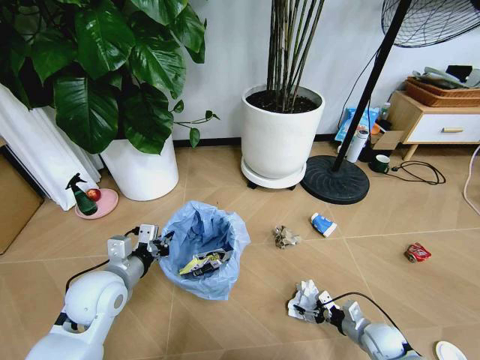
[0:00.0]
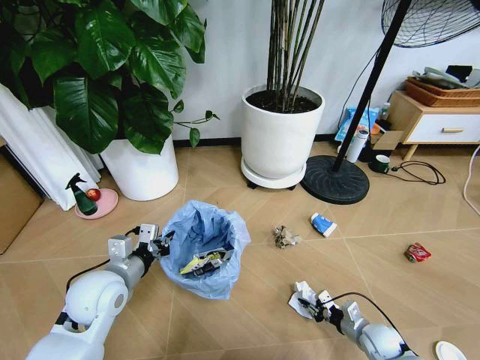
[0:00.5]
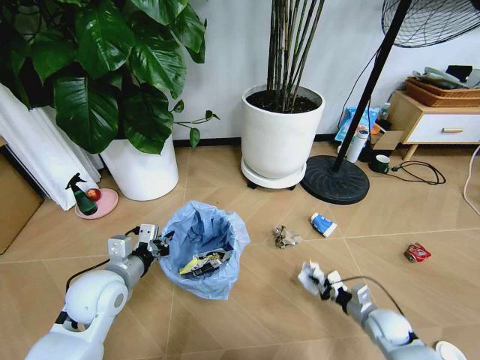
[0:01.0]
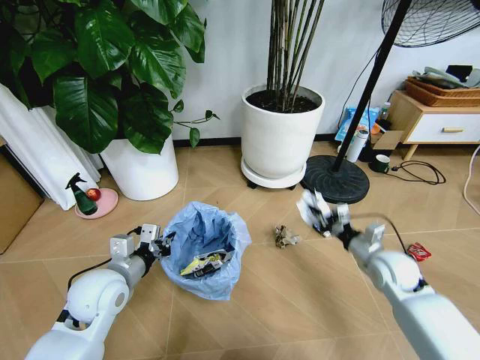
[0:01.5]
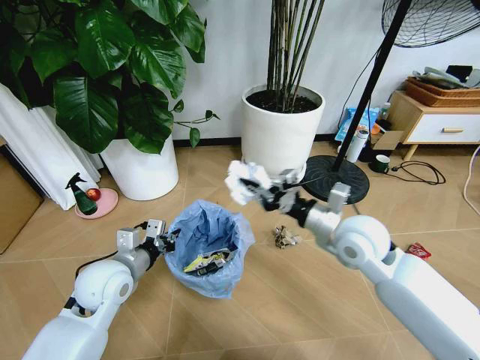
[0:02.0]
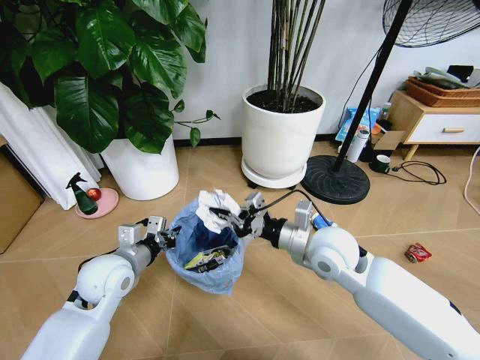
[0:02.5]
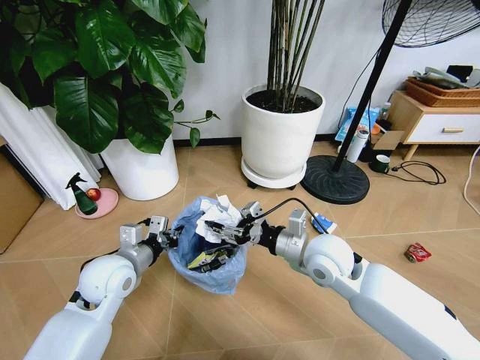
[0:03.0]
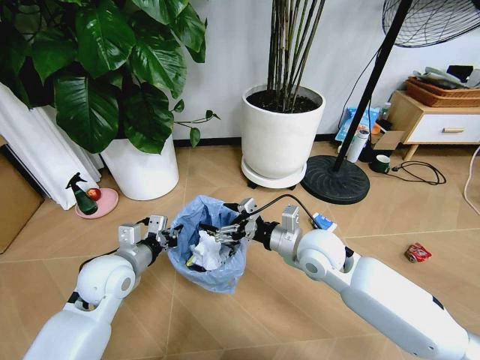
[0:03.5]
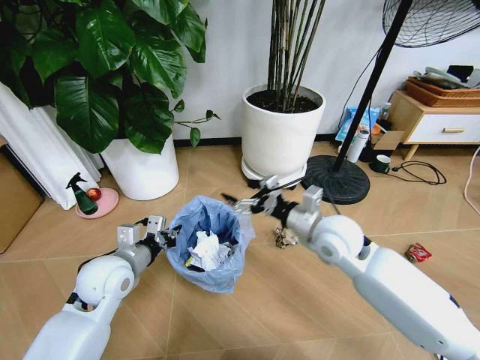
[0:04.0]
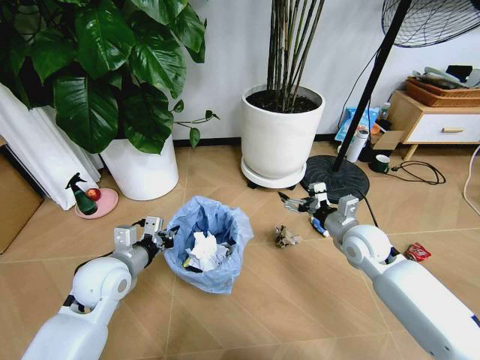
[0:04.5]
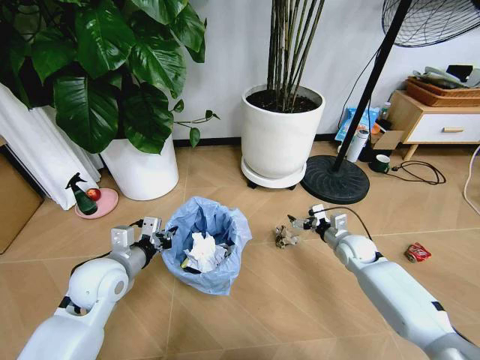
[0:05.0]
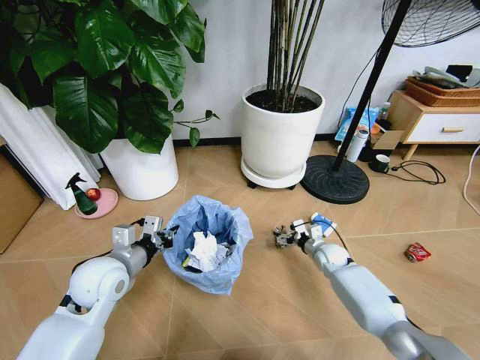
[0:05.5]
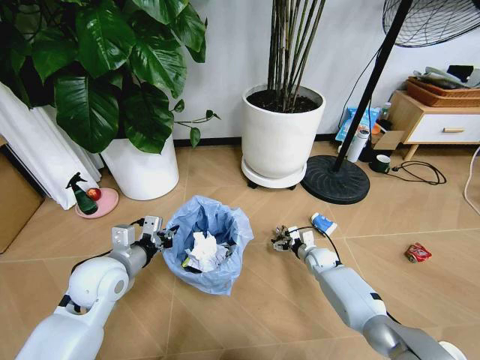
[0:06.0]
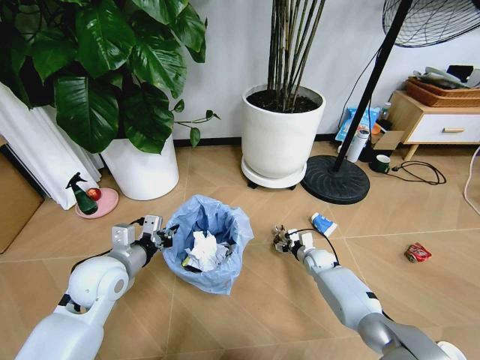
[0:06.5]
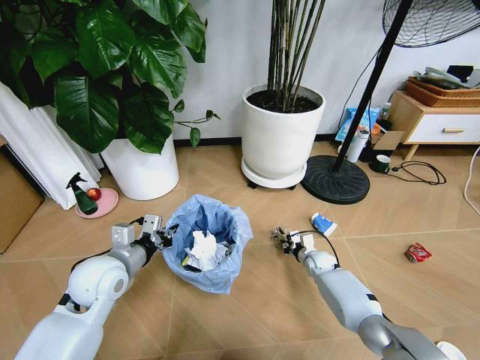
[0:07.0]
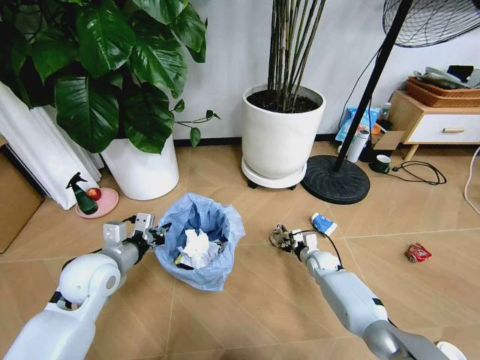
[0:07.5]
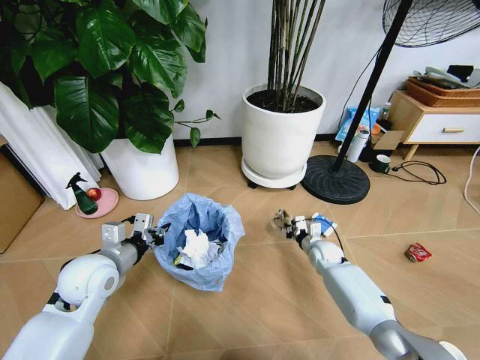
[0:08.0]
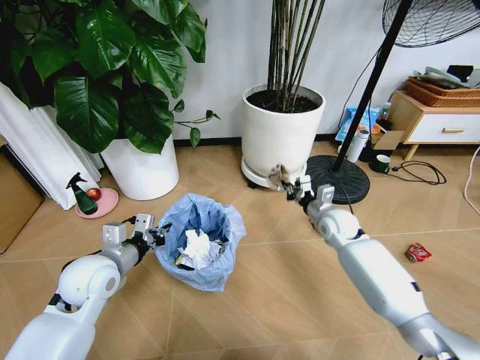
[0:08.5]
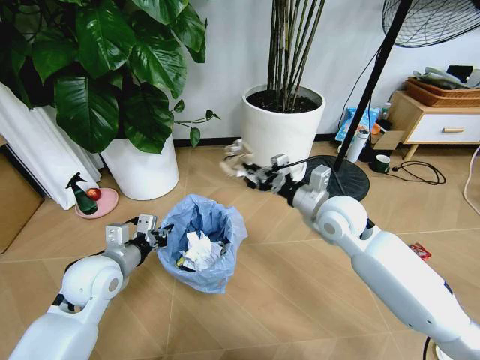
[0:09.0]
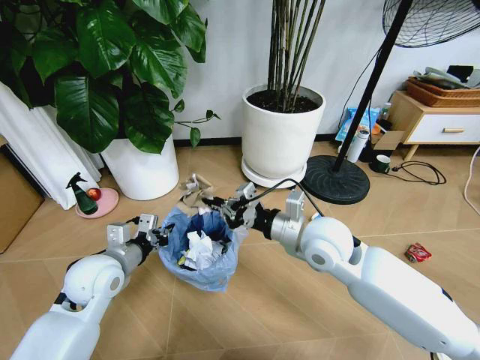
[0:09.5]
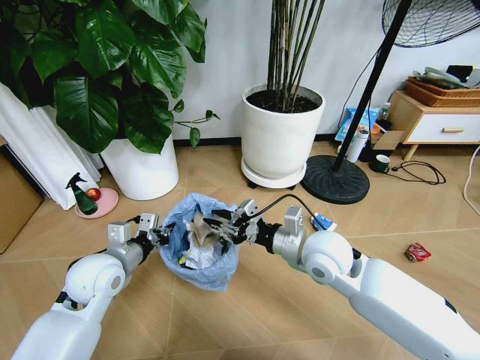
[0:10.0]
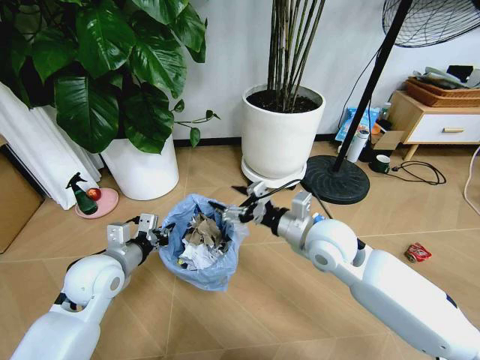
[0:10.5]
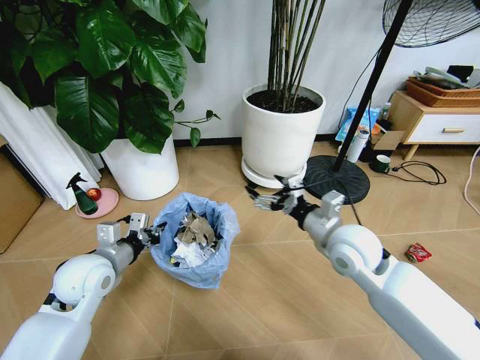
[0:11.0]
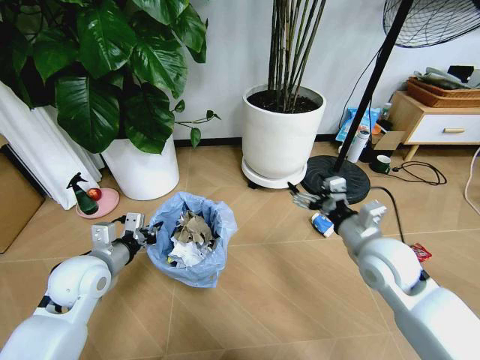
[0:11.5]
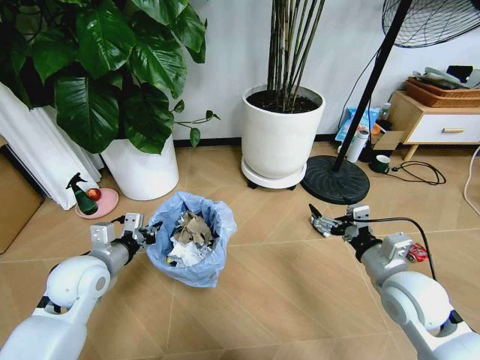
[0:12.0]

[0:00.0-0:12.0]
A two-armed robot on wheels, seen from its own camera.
Task of the whole recording: Pick up the trash bin and place the garbage on the floor into it.
0:00.0 to 0:02.0: The right gripper moves upward and to the left, roughly 35 cm, and closes its fingers.
0:02.0 to 0:04.0: The right gripper opens its fingers.
0:04.0 to 0:06.0: The right gripper travels downward by about 30 cm.
0:06.0 to 0:08.0: The right gripper closes up.
0:08.0 to 0:10.0: The right gripper heads upward, backward and to the left, covering about 30 cm.
0:10.0 to 0:12.0: The right gripper goes some 15 cm to the right and backward, and opens.

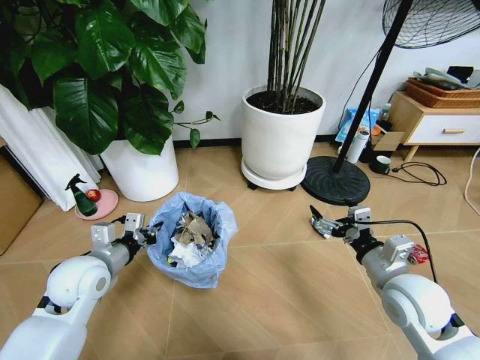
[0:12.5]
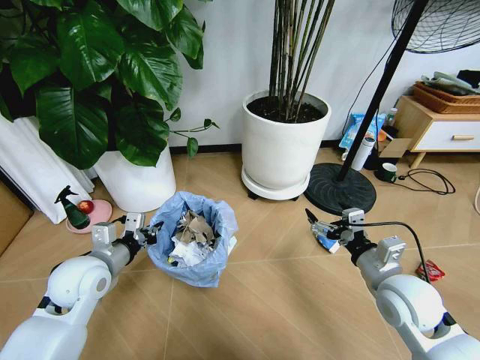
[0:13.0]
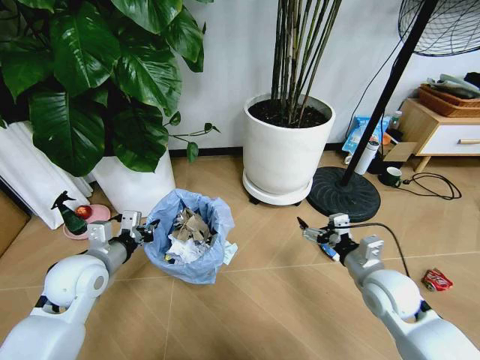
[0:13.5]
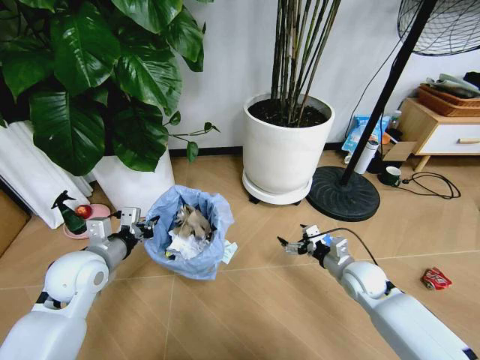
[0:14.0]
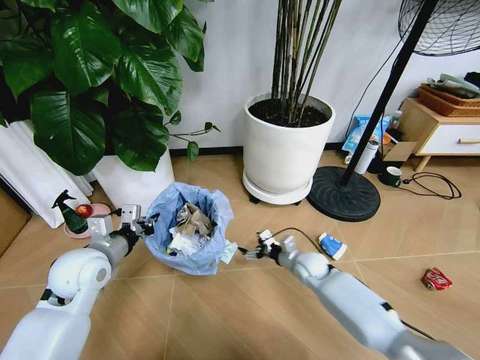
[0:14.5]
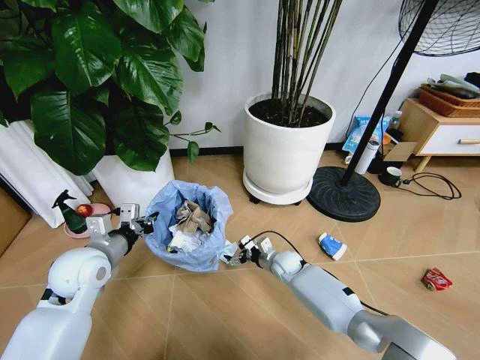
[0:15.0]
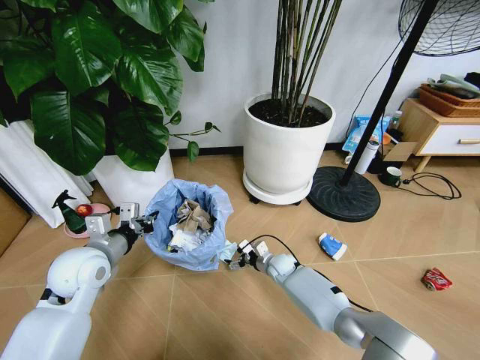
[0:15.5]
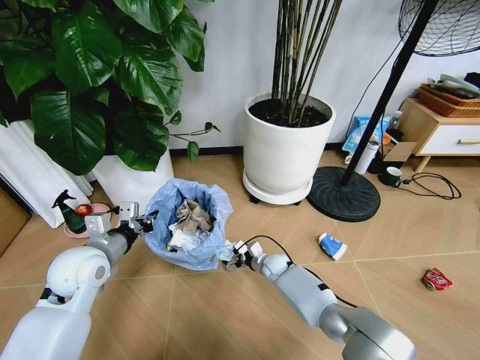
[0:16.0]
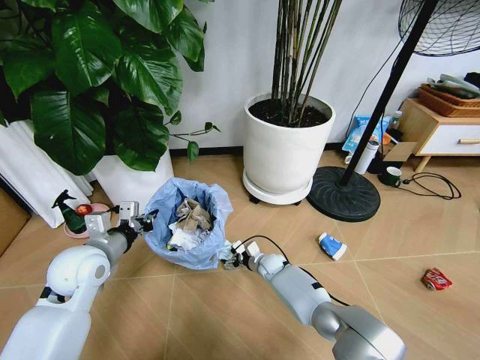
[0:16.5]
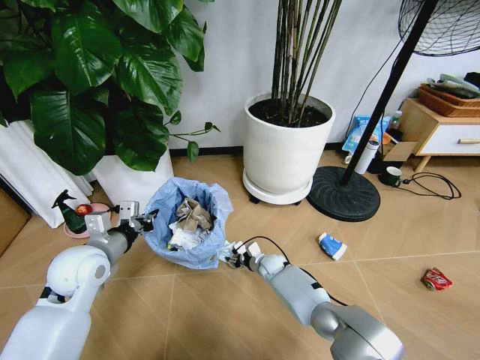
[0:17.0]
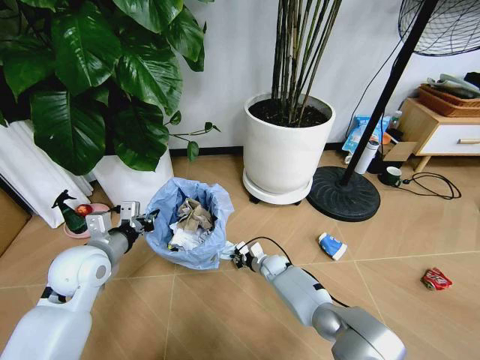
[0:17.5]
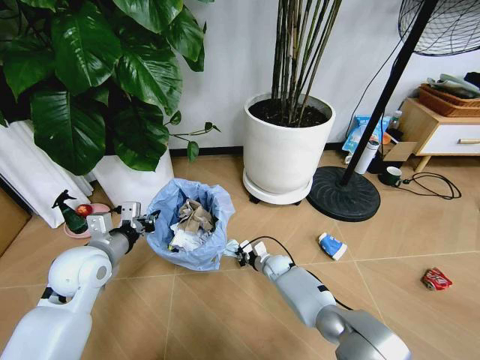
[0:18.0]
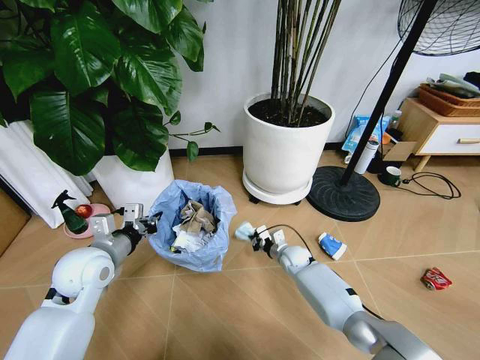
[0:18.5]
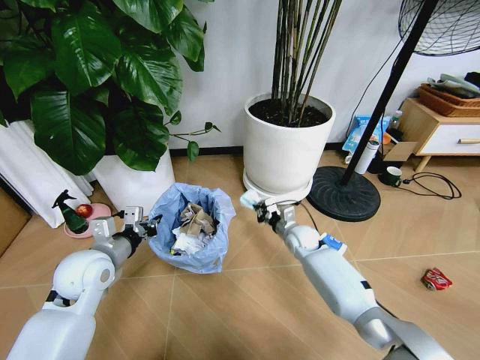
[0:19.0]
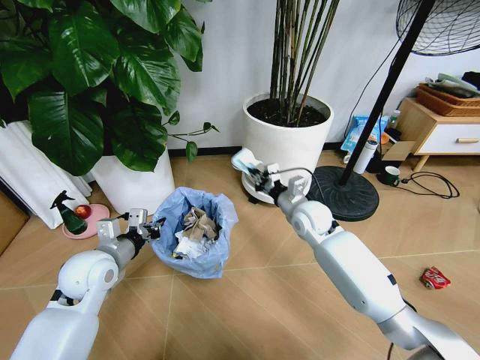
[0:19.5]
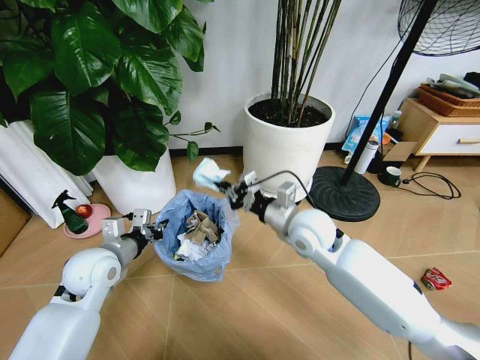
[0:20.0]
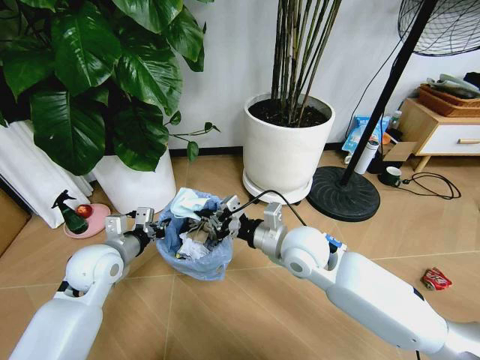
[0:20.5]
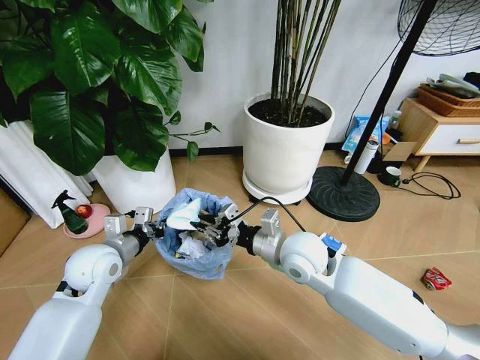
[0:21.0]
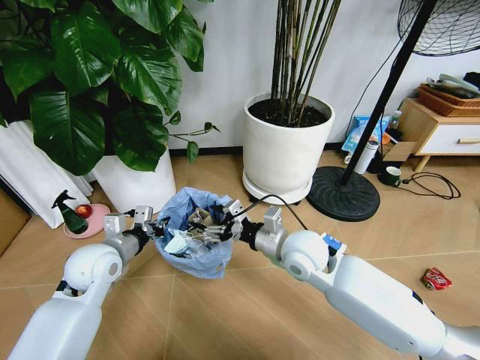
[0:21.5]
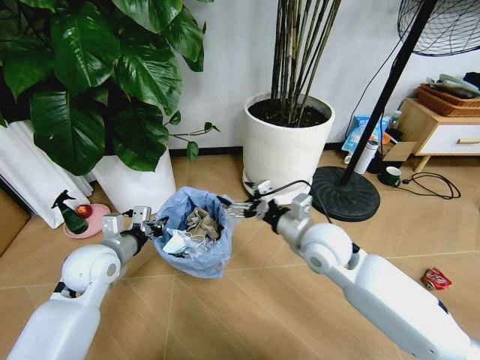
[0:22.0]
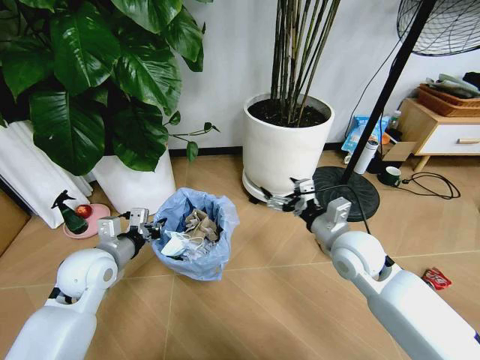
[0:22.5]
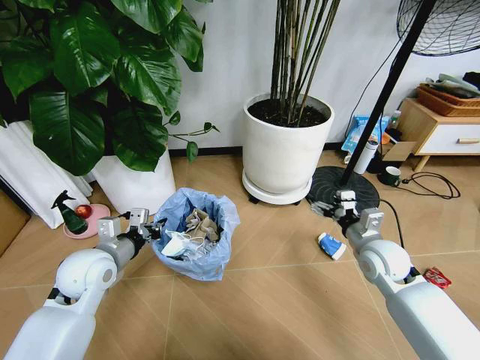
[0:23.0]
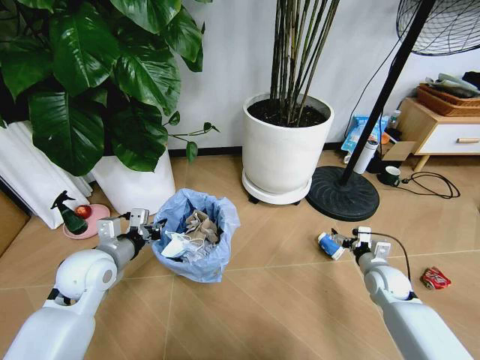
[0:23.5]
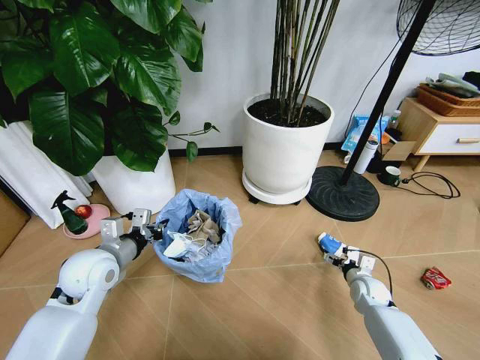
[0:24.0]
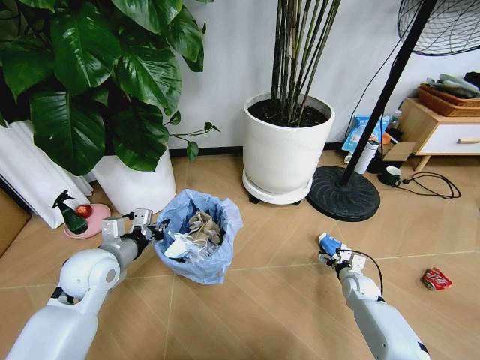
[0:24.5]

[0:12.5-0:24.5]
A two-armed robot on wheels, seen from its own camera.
Task of the whole recording: Pick up the trash bin and place the garbage on the floor into it.
0:12.5 to 0:14.5: The right gripper goes about 30 cm downward, forward and to the left.
0:14.5 to 0:16.5: The right gripper is displaced to the left and downward by roughly 15 cm.
0:16.5 to 0:18.5: The right gripper goes roughly 5 cm to the right, and closes up.
0:18.5 to 0:20.5: The right gripper heads upward and backward, covering some 30 cm.
0:20.5 to 0:22.5: The right gripper moves to the right, roughly 10 cm, and opens up.
0:22.5 to 0:24.5: The right gripper travels downward and to the right by some 30 cm.

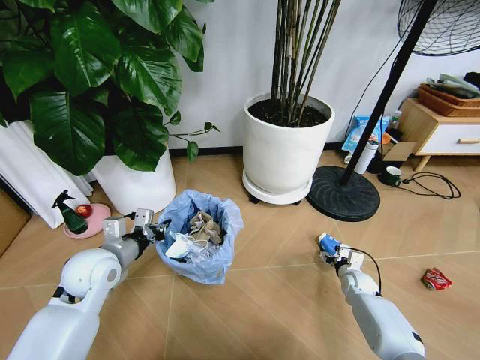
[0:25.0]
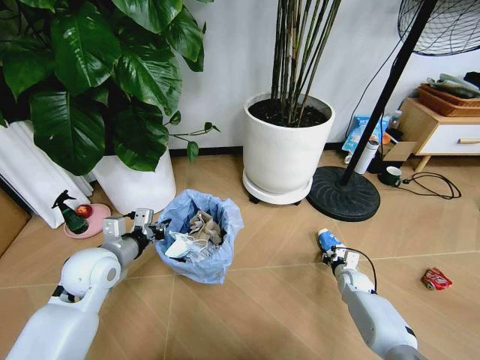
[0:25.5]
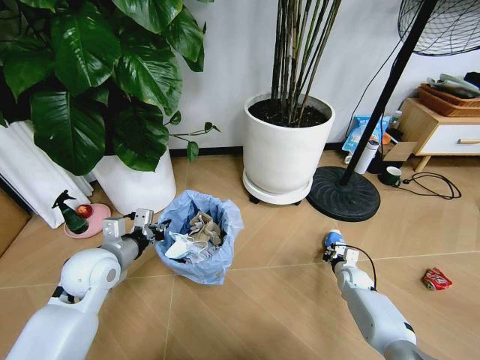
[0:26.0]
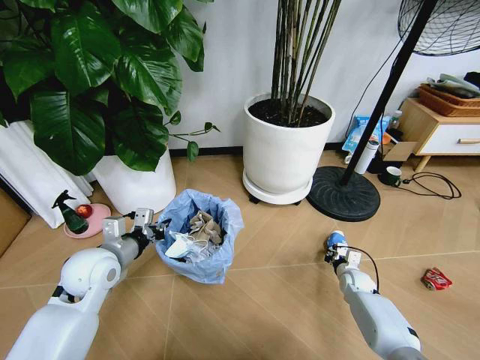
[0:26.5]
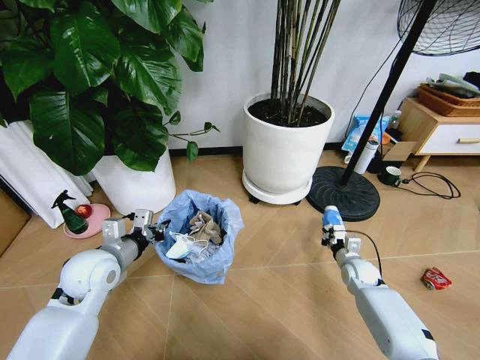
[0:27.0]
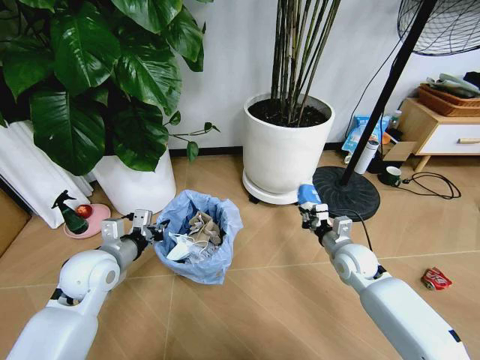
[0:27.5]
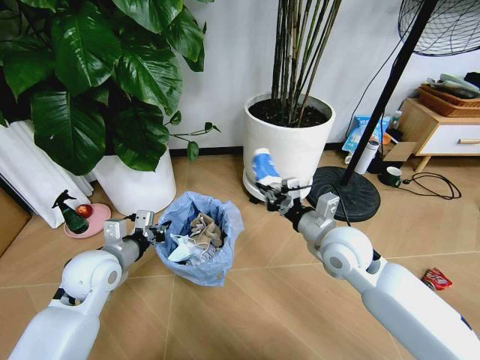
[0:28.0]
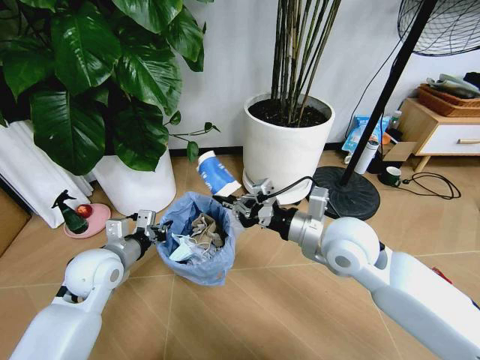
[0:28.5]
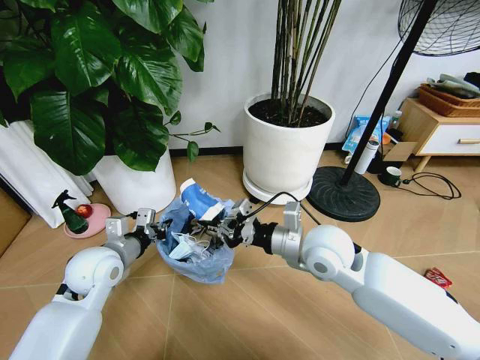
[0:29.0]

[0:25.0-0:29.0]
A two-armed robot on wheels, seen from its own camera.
Task of the whole recording: Pick up the trash bin and place the garbage on the floor into it.
0:25.0 to 0:27.0: The right gripper heads upward, covering roughly 5 cm, and closes.
0:27.0 to 0:29.0: The right gripper shifts some 35 cm upward and to the left.
